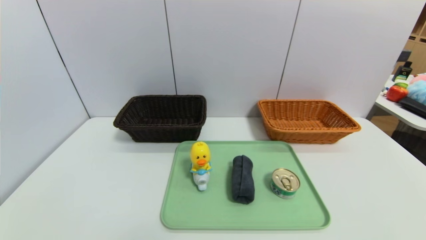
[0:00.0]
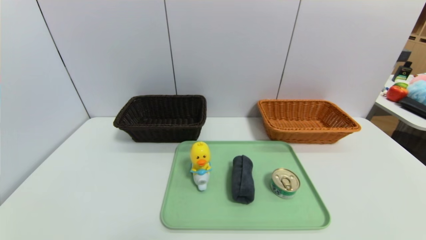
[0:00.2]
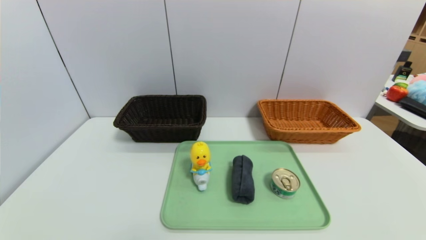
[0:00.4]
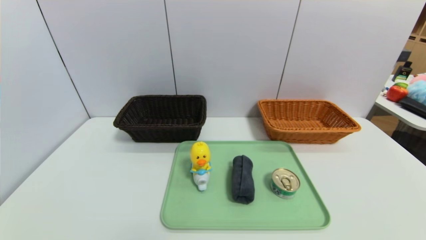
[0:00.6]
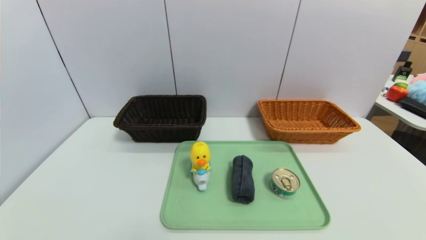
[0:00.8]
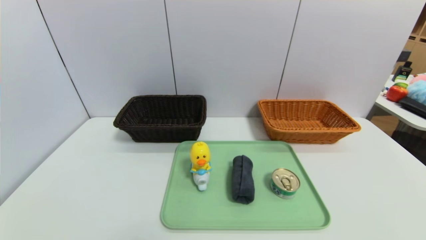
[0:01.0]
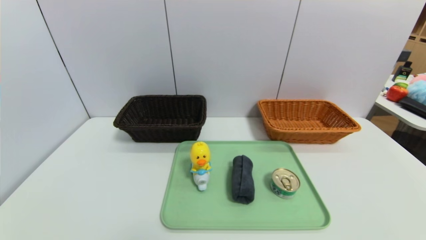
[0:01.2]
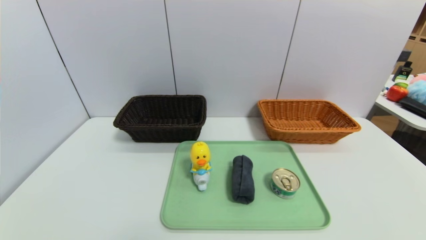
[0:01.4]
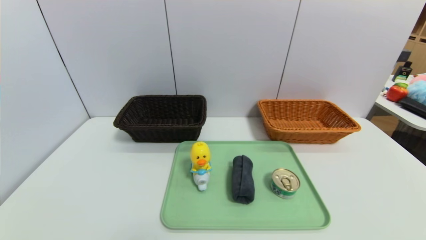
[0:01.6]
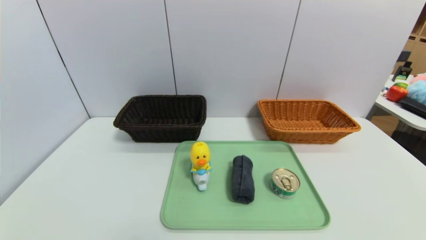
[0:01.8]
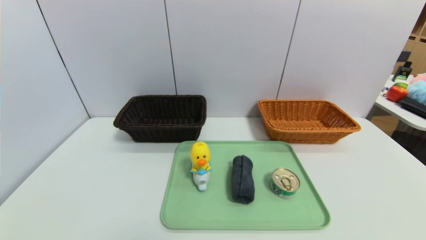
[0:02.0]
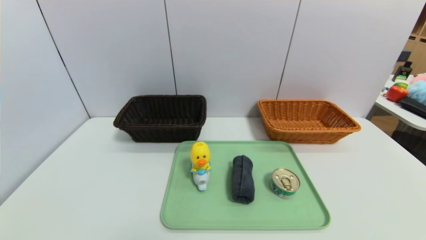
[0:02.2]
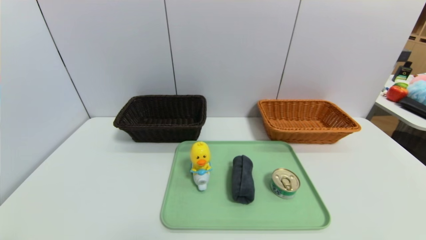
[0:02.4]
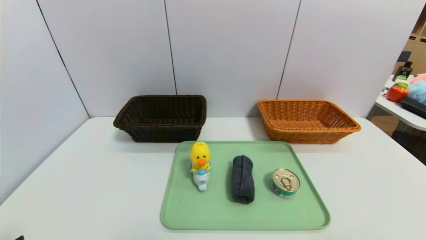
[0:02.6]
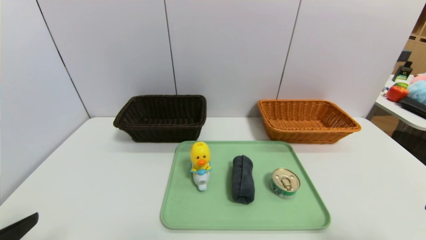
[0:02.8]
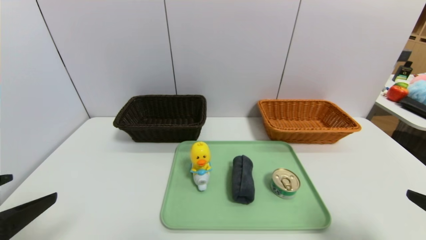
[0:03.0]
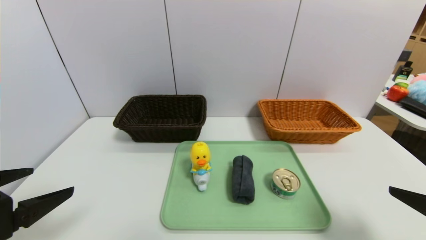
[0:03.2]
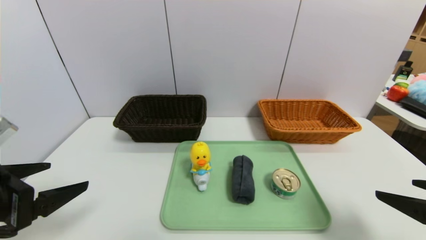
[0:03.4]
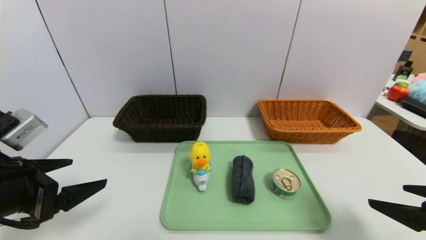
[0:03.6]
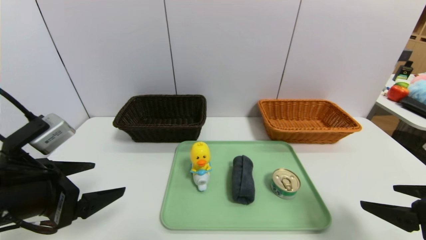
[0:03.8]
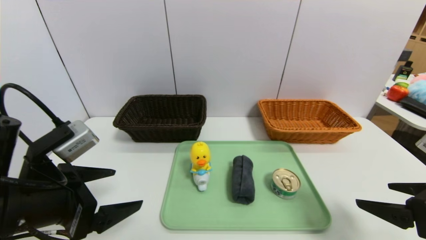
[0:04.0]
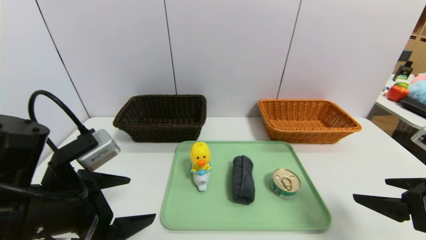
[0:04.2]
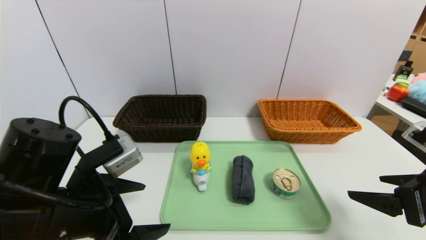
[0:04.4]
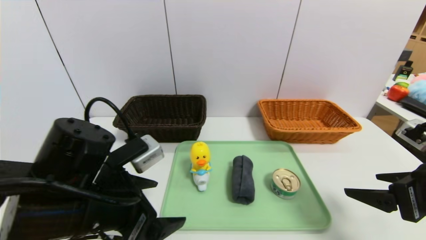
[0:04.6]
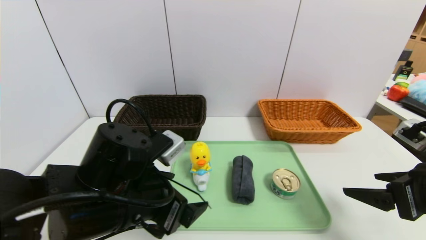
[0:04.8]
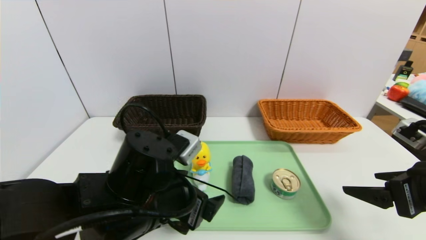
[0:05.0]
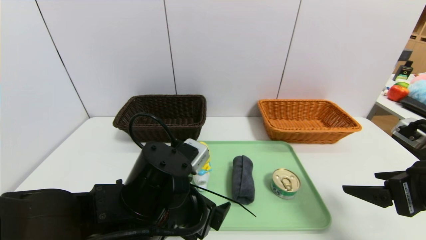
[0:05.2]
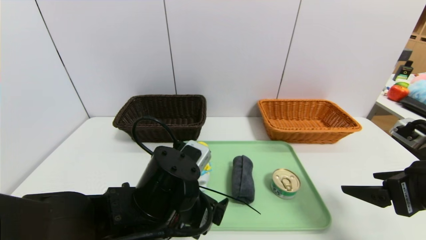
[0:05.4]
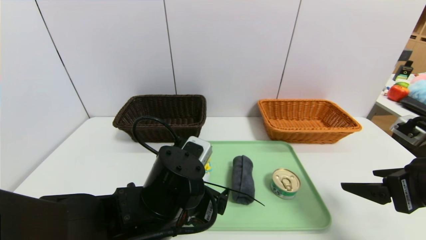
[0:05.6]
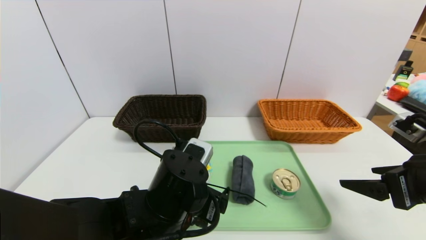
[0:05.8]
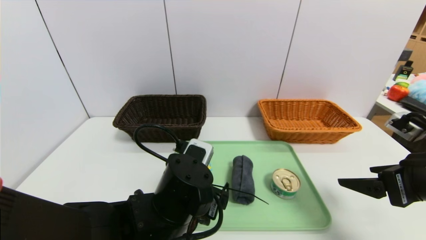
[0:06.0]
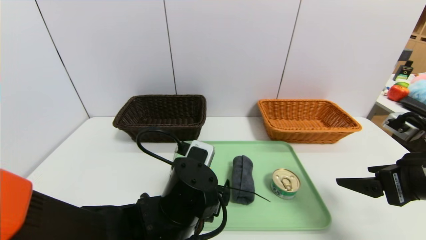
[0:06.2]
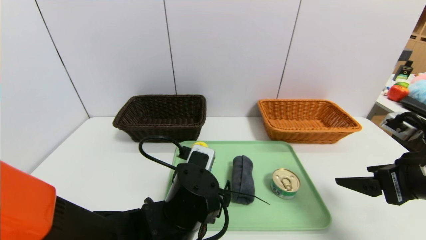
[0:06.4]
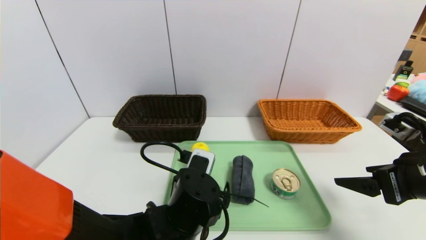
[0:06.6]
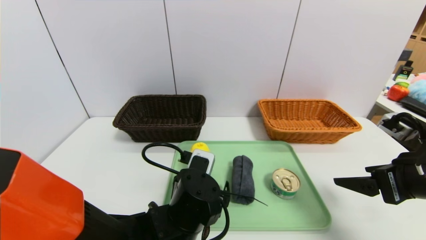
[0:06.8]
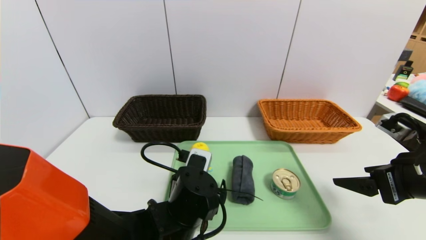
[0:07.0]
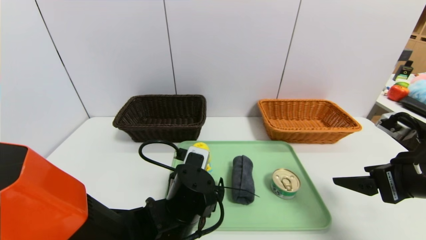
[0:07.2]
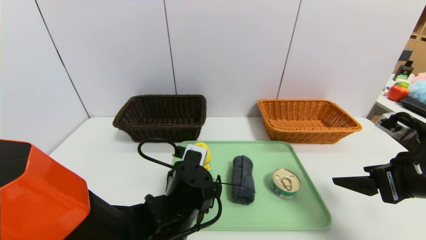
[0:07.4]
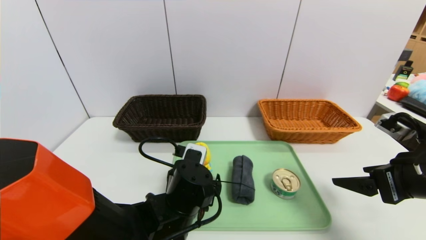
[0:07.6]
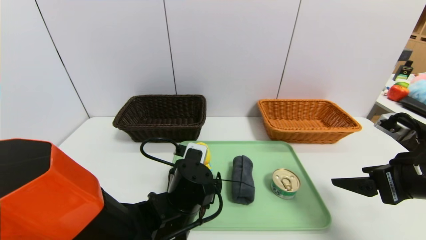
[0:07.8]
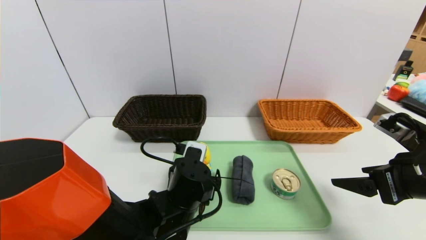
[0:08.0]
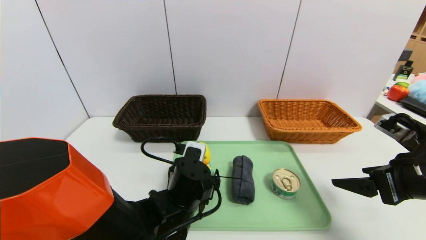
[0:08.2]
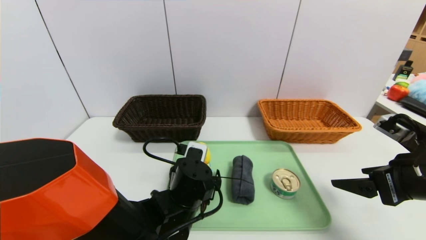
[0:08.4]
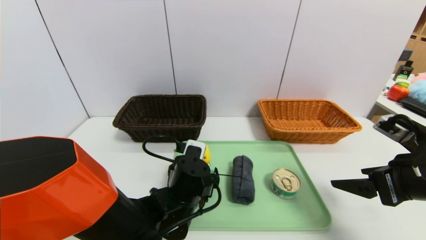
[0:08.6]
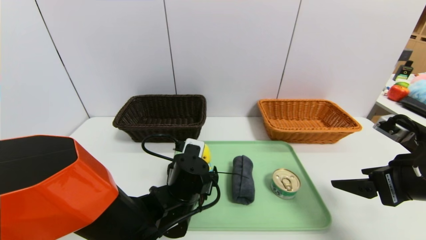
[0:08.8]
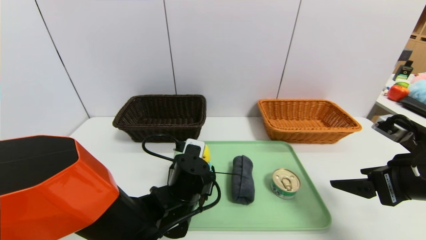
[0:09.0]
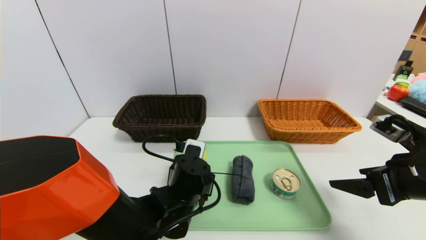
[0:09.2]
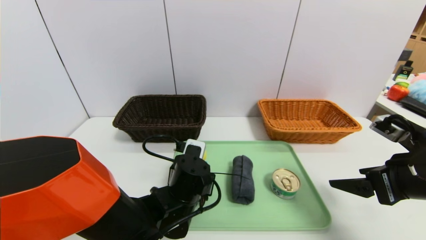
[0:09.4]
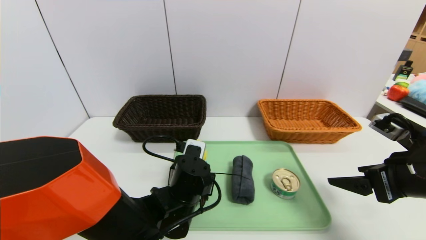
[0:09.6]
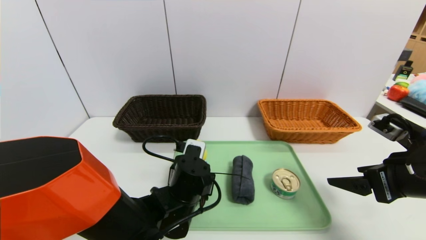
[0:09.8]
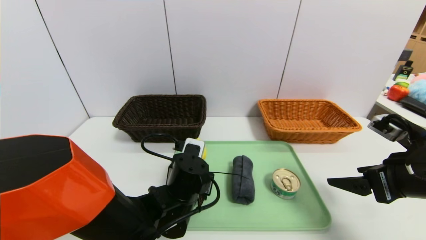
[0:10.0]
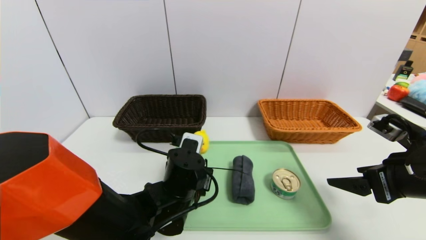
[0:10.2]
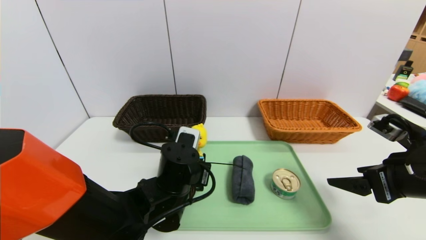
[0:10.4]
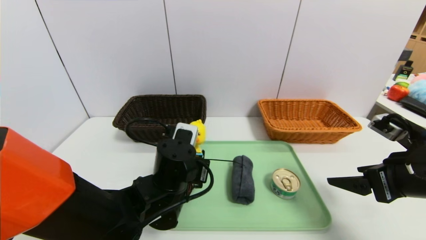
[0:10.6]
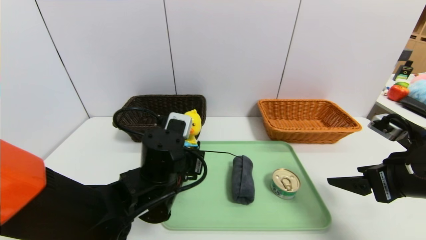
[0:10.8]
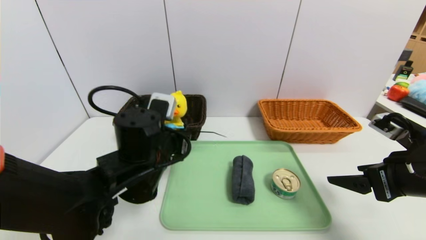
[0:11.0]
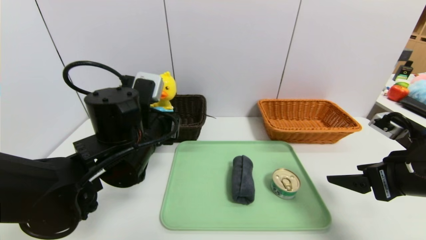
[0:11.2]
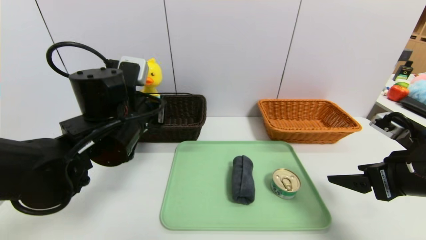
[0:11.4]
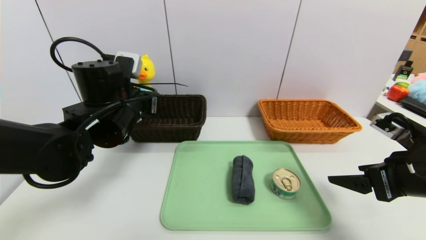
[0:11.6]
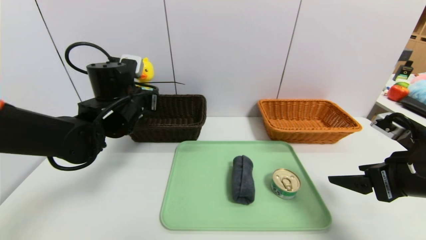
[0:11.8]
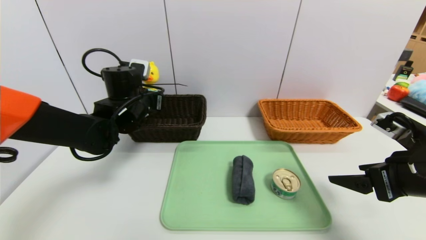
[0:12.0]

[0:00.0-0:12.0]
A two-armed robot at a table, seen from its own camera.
Task of the whole recording: place the food in the right basket with the right gripper, and place the non food items in the left basket with the left gripper.
0:01.6 to 0:03.0: The right gripper heads forward and upward, covering about 15 cm. The left gripper is displaced upward and forward by approximately 15 cm.
0:03.0 to 0:04.4: The left gripper moves to the right and forward, some 15 cm, while the right gripper goes about 5 cm forward.
0:04.4 to 0:06.0: The left gripper travels to the right and downward by approximately 15 cm.
0:06.0 to 0:07.6: The left gripper ends up roughly 5 cm from where it was.
0:07.6 to 0:10.4: The grippers stay close to where they were, moving slightly.
0:10.4 to 0:12.0: The left gripper shifts some 20 cm forward, to the left and upward.

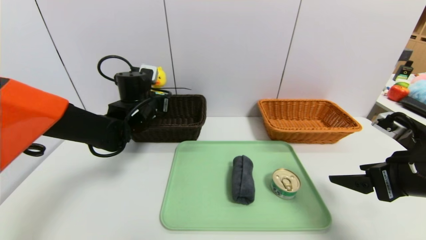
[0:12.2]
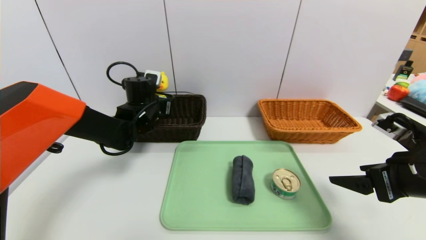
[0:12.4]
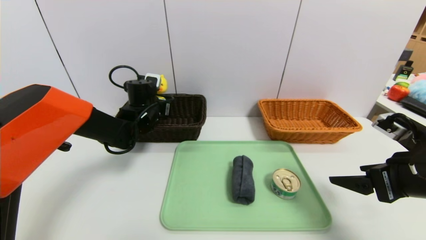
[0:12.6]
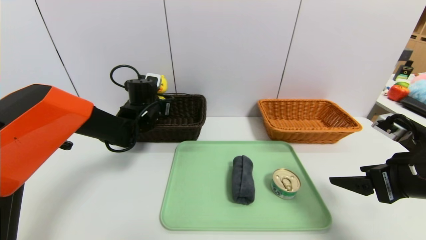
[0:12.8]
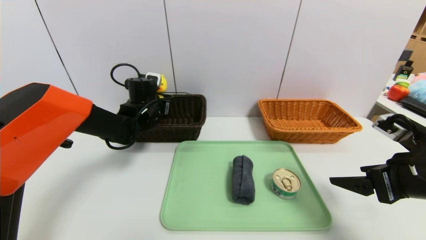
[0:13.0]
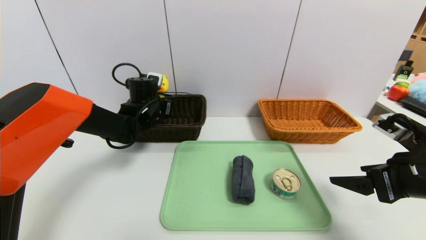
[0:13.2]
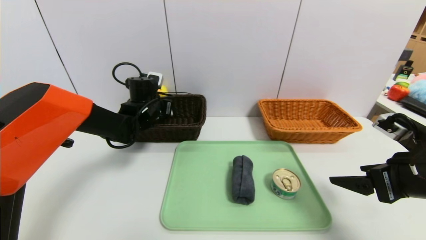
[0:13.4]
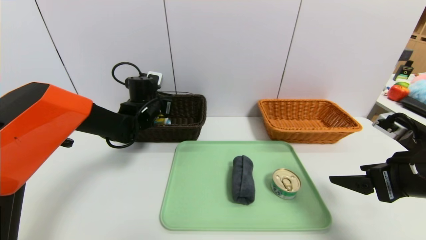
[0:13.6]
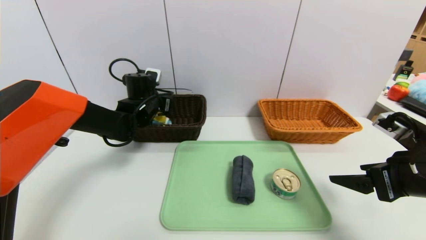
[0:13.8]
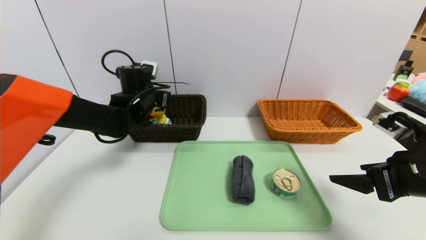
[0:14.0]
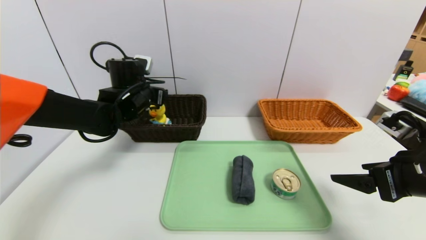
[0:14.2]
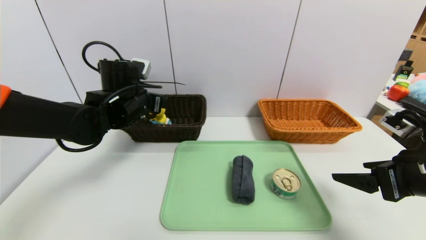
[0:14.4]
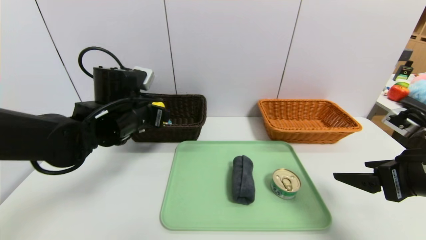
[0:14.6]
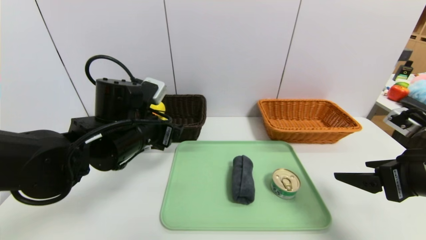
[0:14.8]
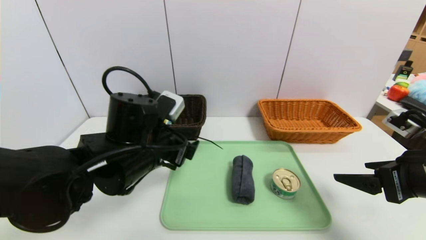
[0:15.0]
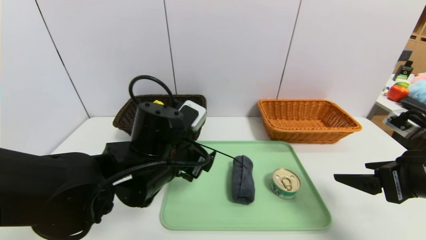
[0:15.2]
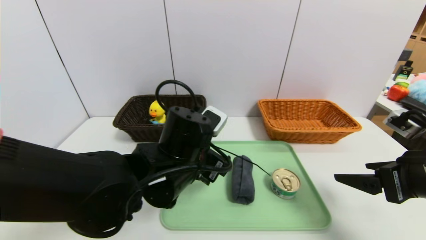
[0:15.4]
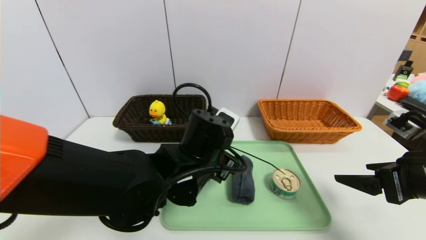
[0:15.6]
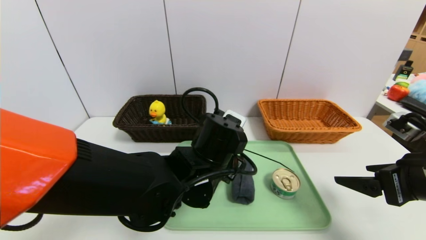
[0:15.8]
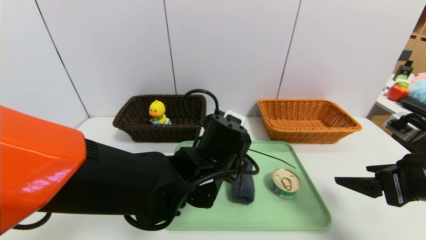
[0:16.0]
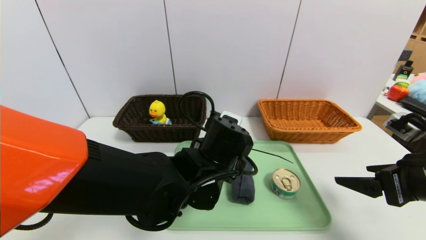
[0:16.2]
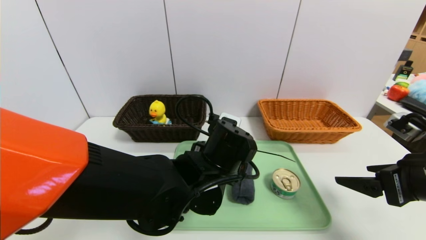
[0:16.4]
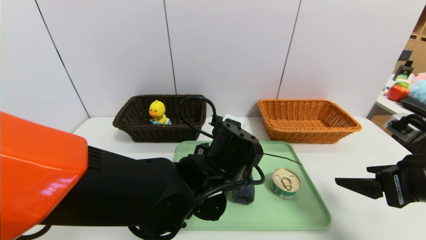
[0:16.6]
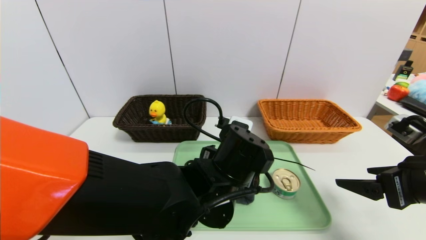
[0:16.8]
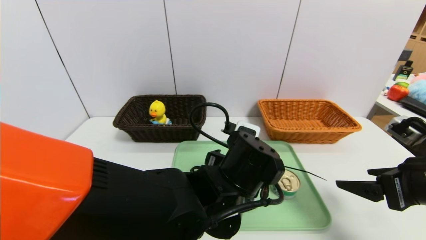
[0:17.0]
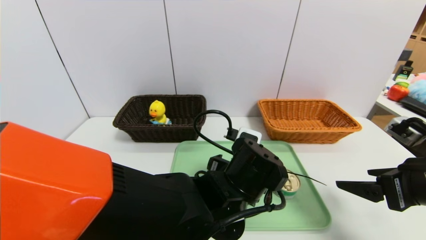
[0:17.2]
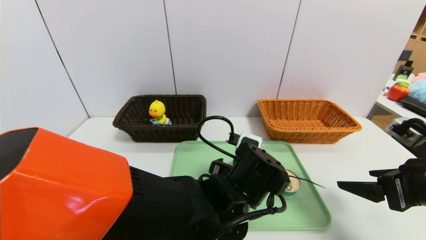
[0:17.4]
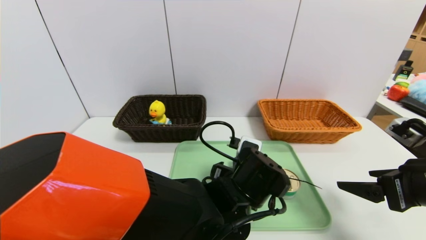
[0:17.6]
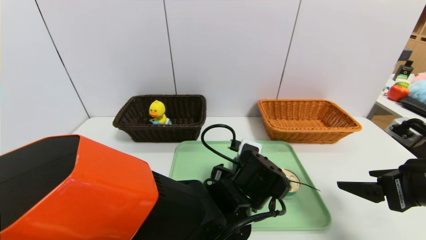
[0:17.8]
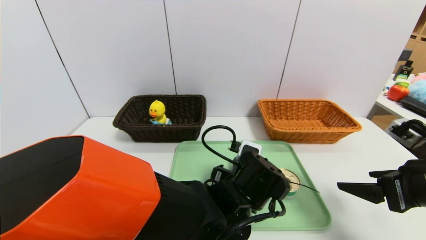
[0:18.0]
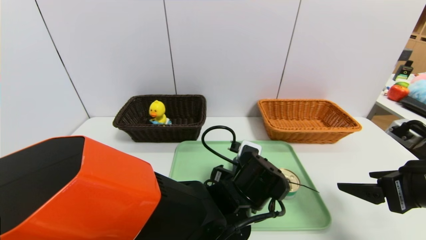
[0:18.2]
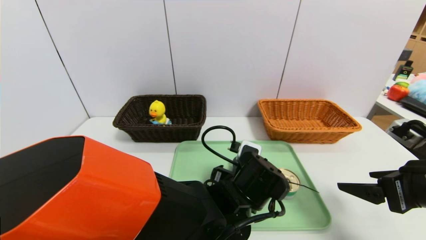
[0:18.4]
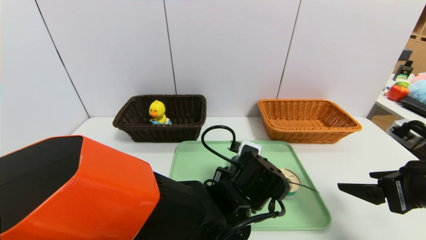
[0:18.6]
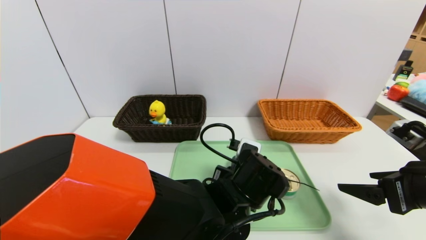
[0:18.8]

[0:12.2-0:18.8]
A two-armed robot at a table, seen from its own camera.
Task of the whole recording: place the food in the right basket with the right gripper, and place the non food items in the left basket with the left gripper.
0:12.2 to 0:13.8: The left gripper opens up.
0:13.8 to 0:15.4: The left gripper shifts roughly 25 cm backward and to the right.
0:15.4 to 0:17.2: The left gripper moves to the right, roughly 10 cm.
0:17.2 to 0:18.8: The left gripper closes.
